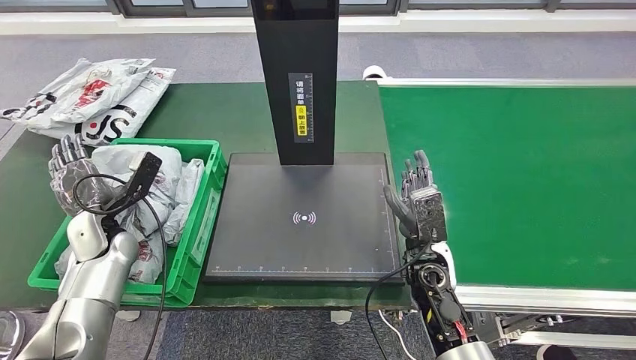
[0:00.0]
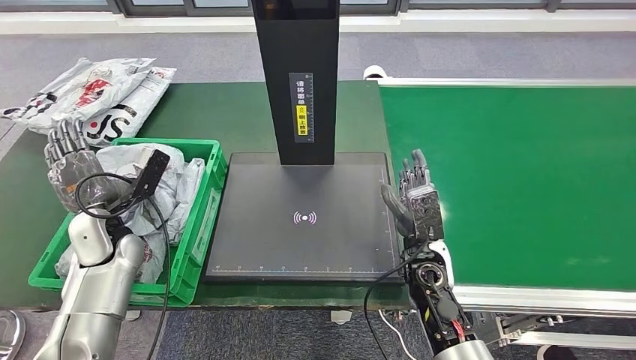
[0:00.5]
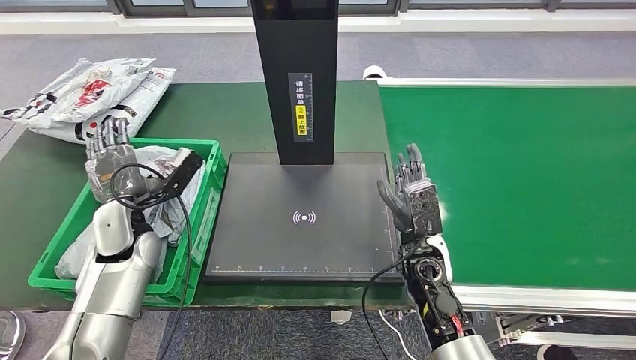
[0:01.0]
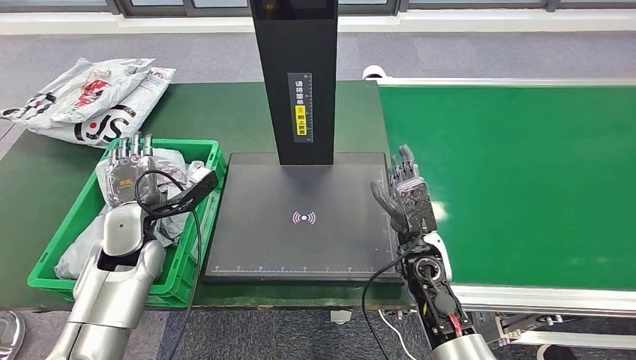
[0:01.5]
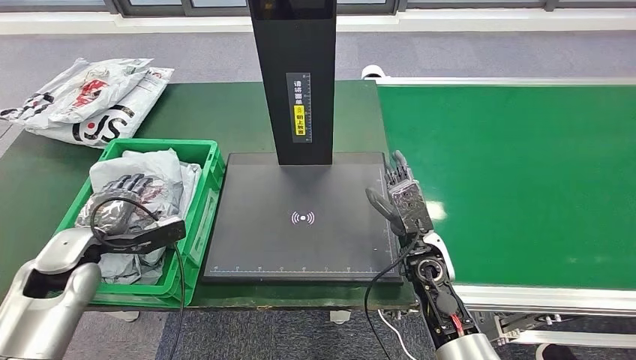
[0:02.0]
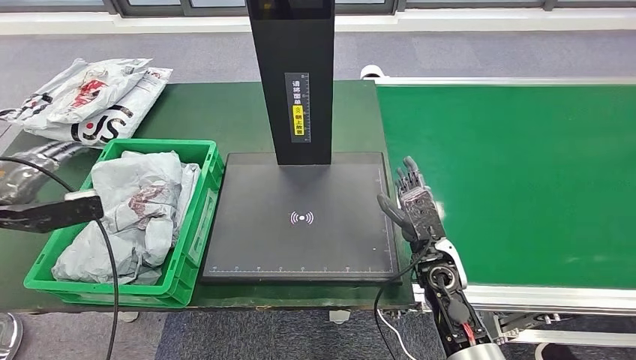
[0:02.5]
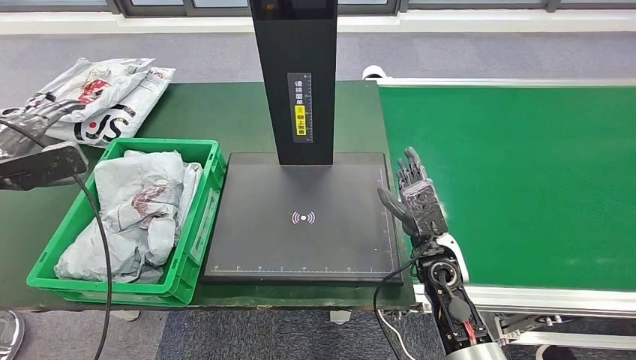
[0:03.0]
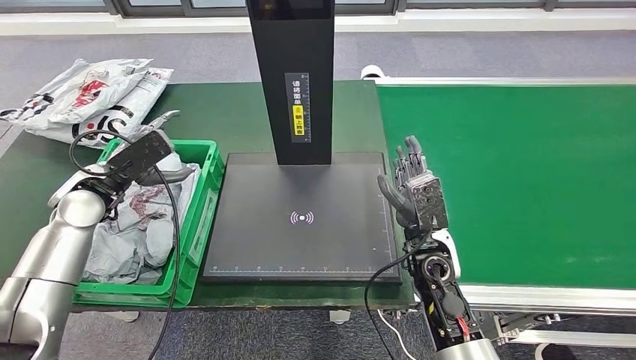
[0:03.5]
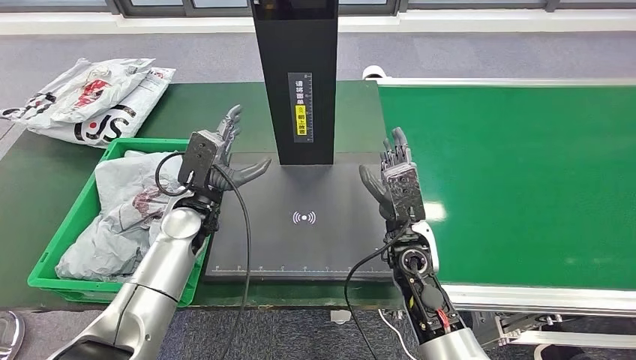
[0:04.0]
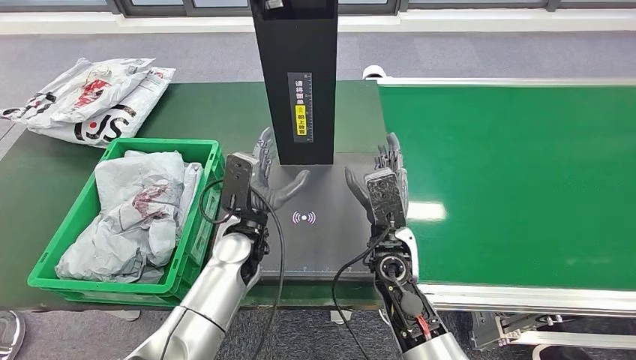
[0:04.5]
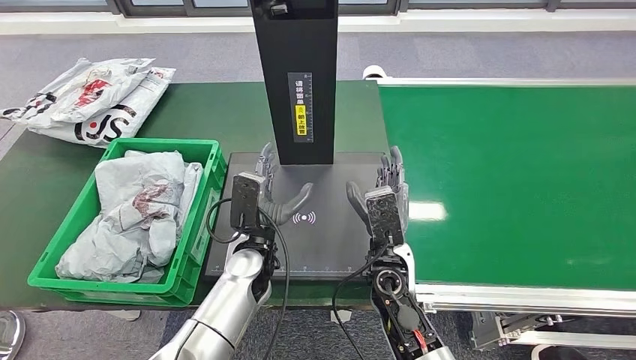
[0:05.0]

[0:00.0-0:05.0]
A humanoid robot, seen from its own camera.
Step, 0:00.0 to 0:05.0: Place the parcel into the delivery box.
